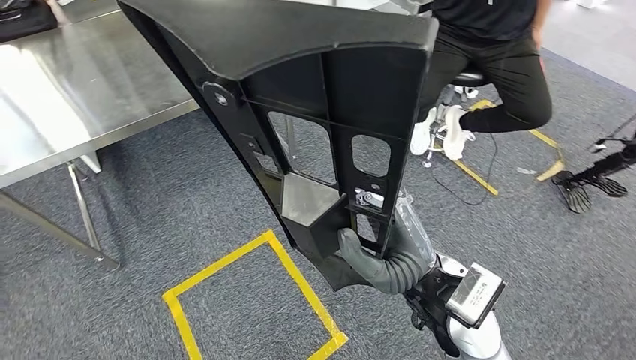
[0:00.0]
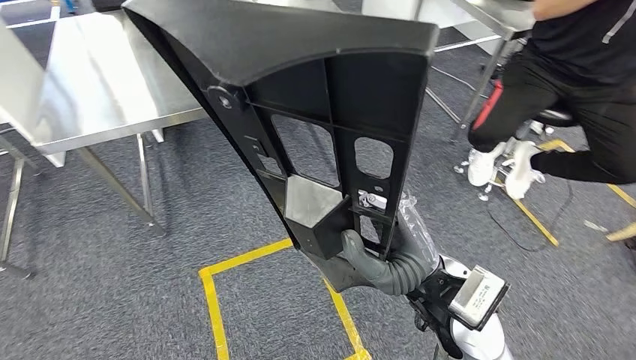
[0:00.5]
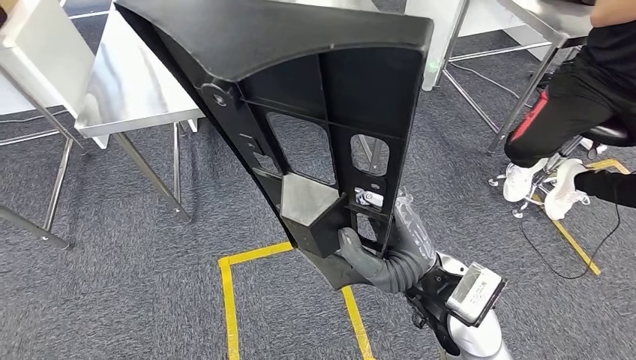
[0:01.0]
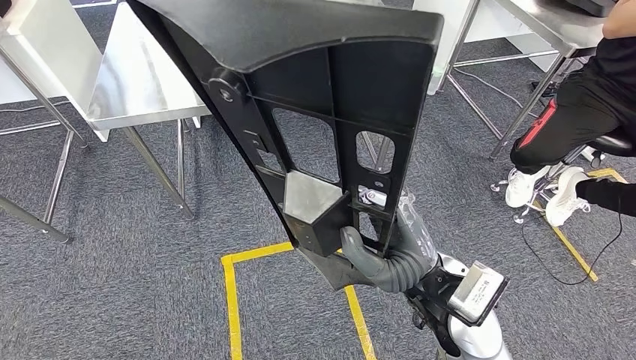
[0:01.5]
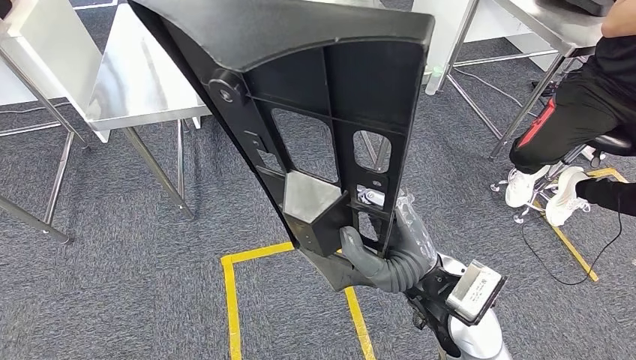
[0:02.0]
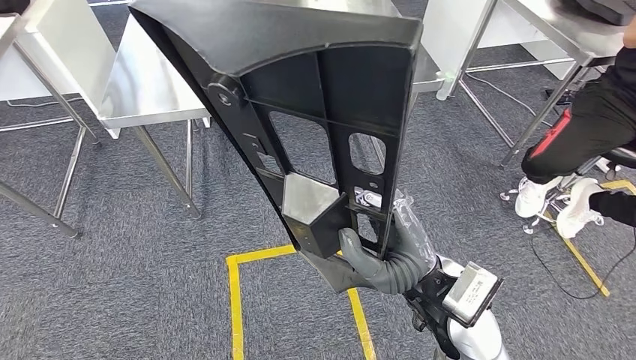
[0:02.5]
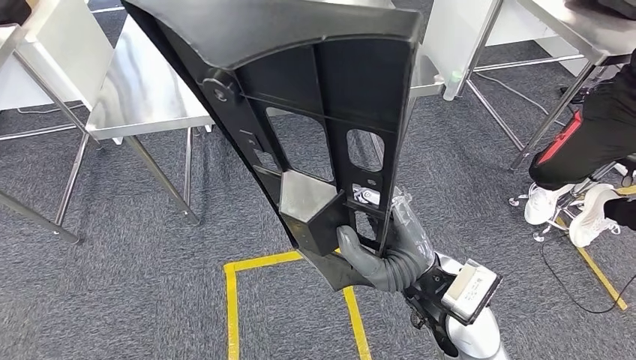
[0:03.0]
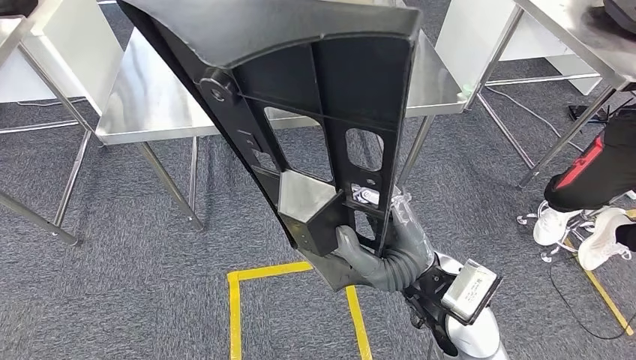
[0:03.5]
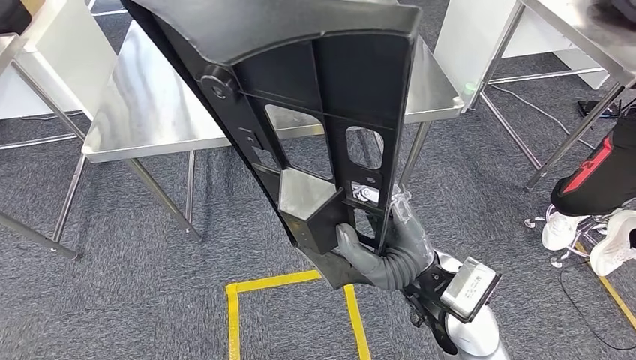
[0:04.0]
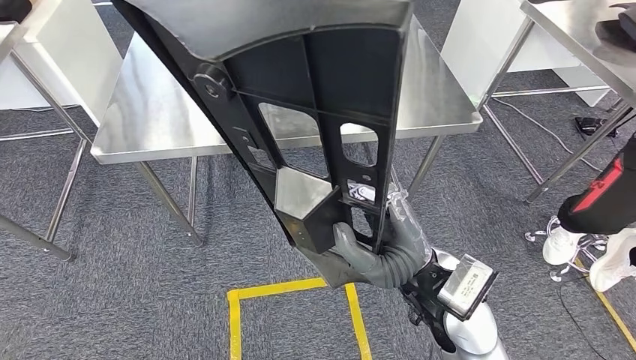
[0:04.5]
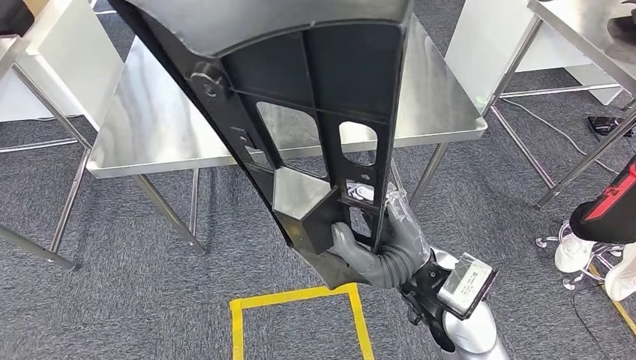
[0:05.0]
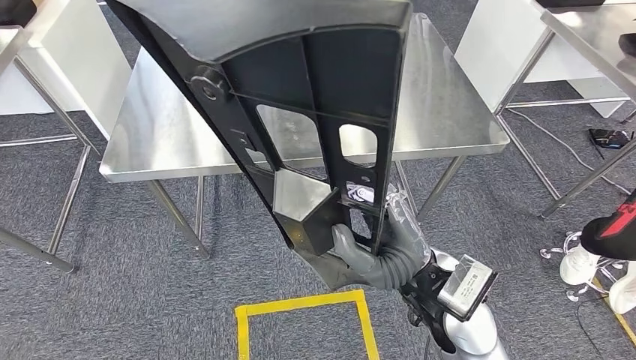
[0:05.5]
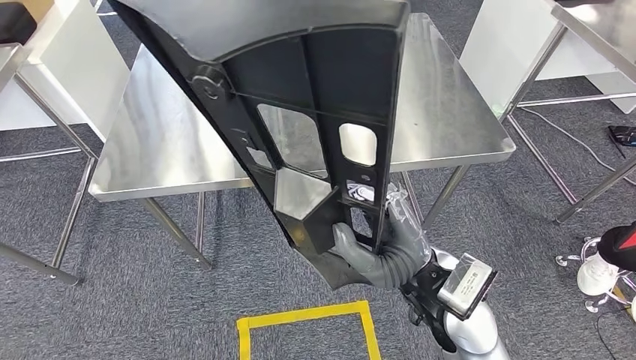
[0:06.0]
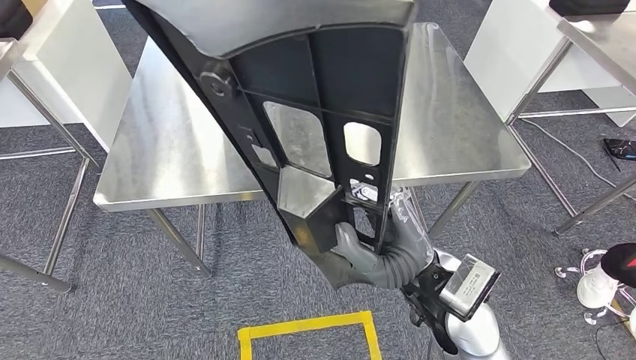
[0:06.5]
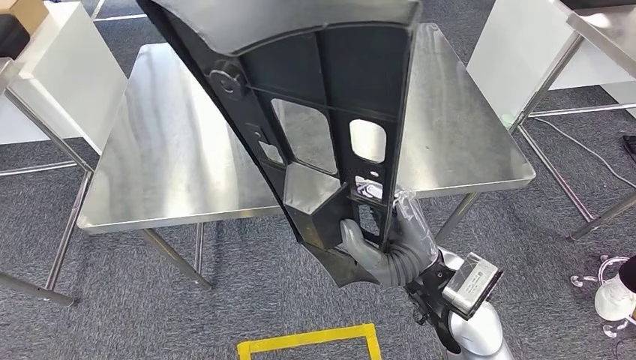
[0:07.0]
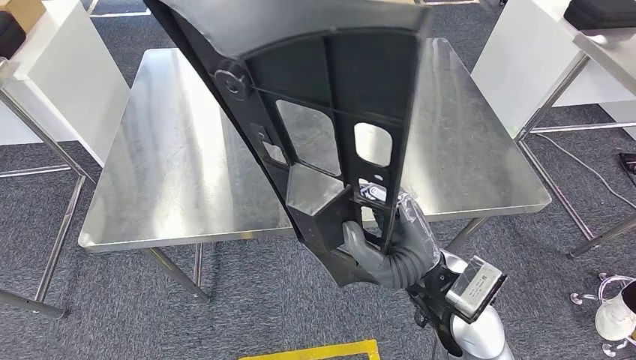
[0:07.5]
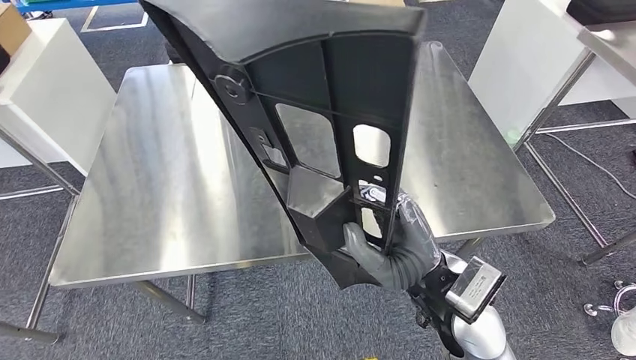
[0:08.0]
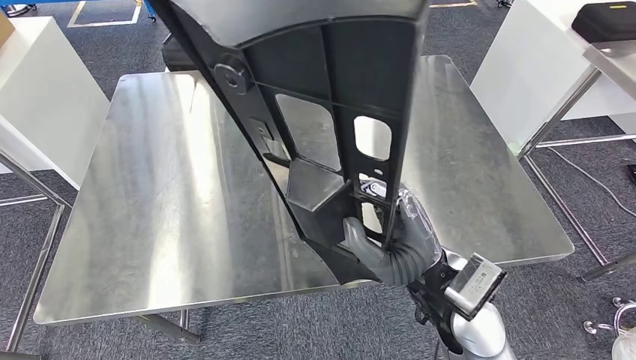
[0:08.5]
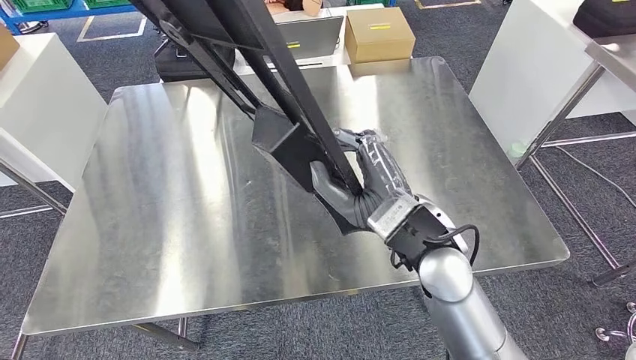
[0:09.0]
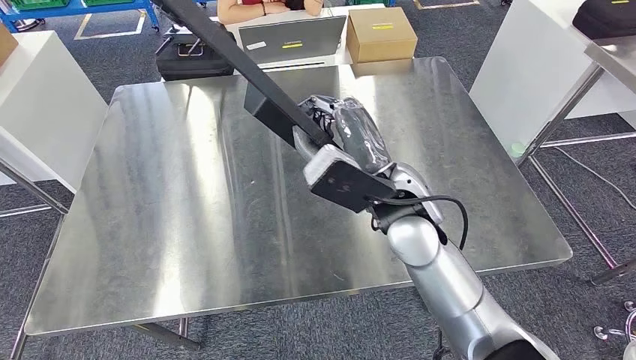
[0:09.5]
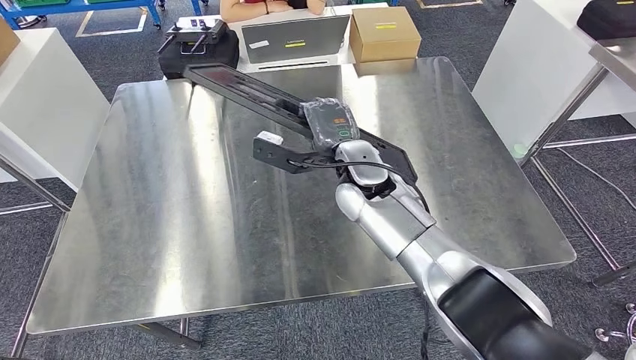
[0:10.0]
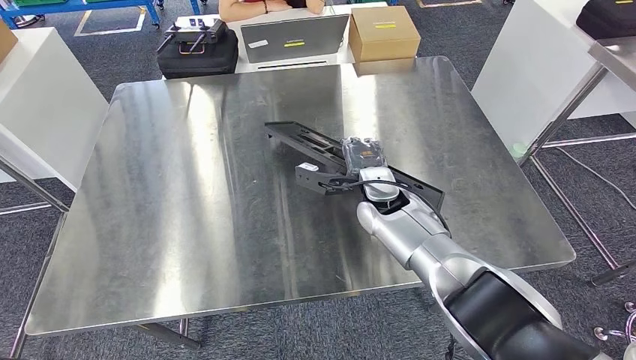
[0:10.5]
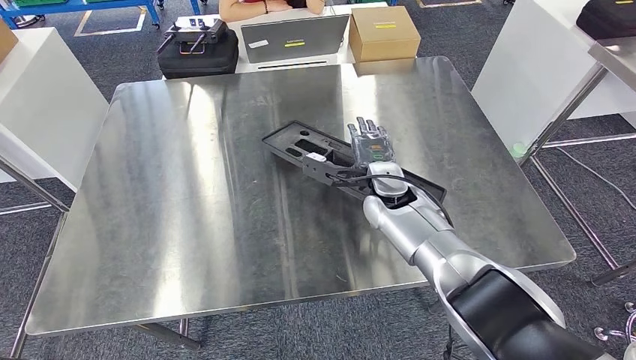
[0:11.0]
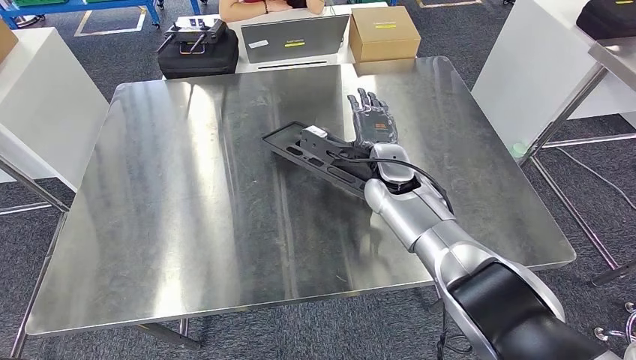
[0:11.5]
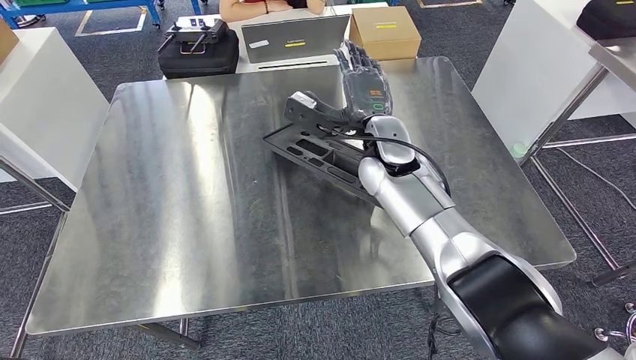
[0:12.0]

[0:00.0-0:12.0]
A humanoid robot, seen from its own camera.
Step, 0:00.0 to 0:06.5: Move the large material to the workbench.
0:10.0 to 0:12.0: The right hand goes downward and returns, roughly 5 cm each way.

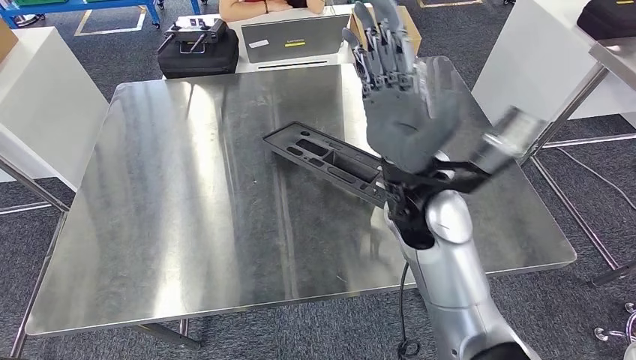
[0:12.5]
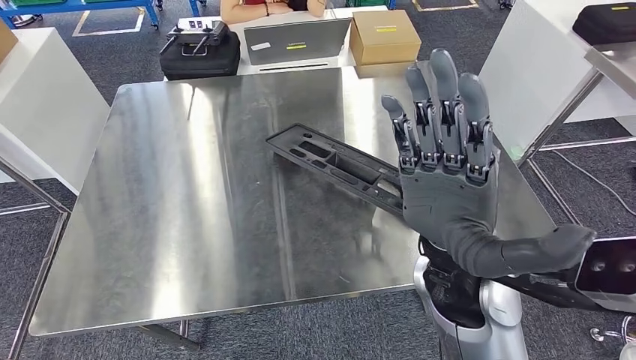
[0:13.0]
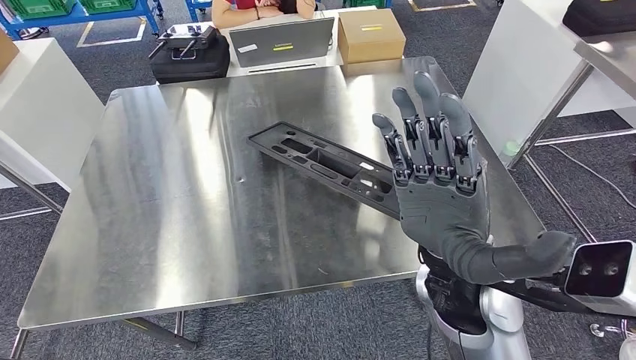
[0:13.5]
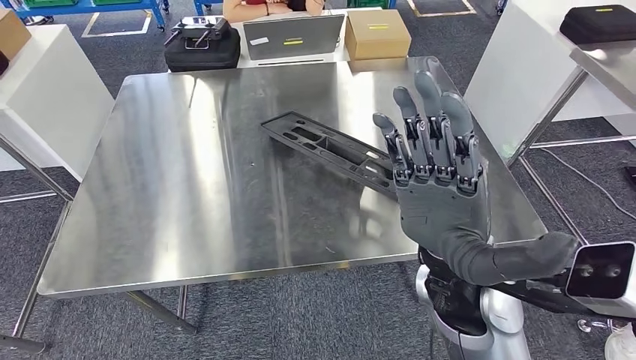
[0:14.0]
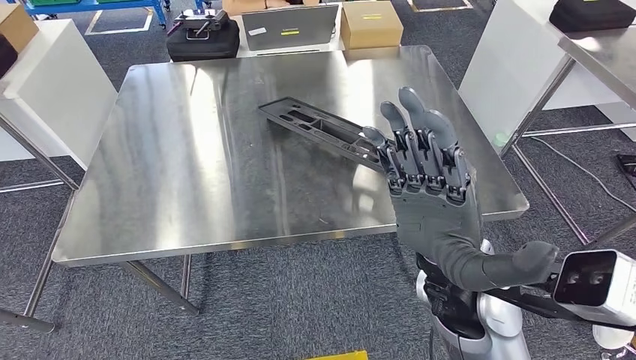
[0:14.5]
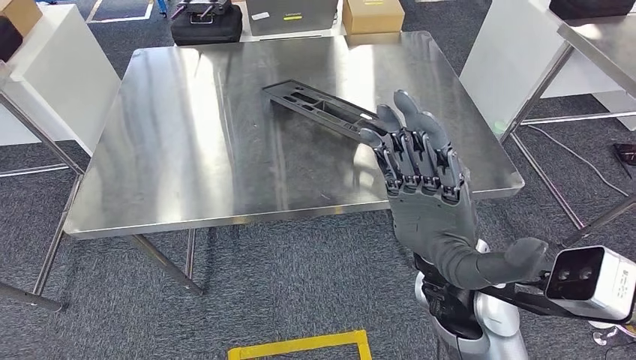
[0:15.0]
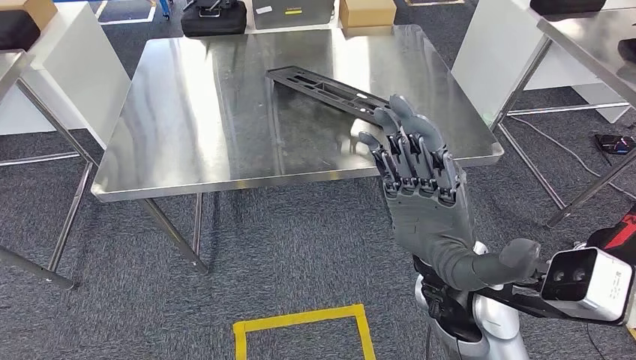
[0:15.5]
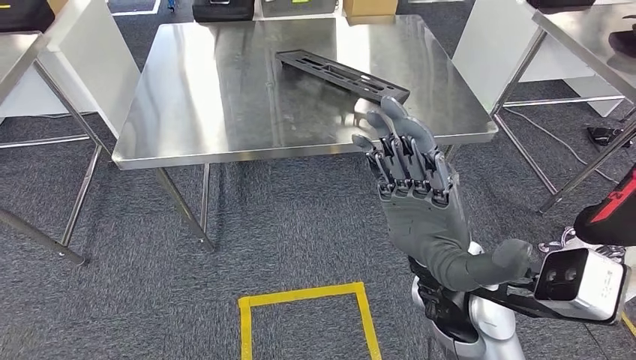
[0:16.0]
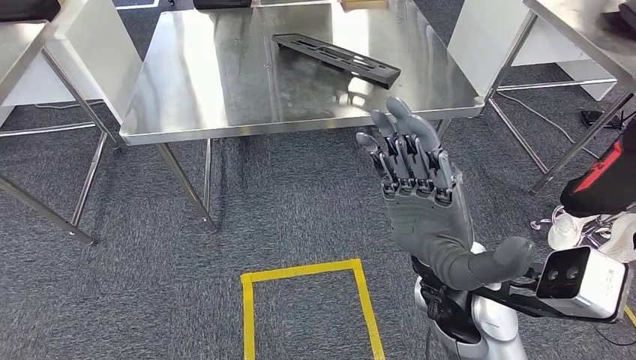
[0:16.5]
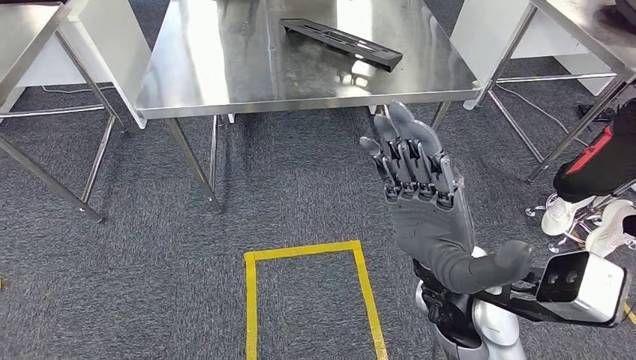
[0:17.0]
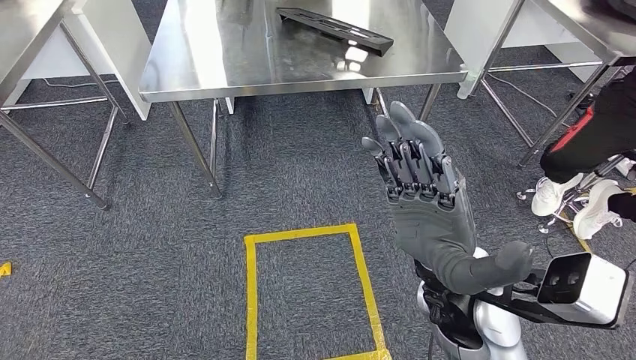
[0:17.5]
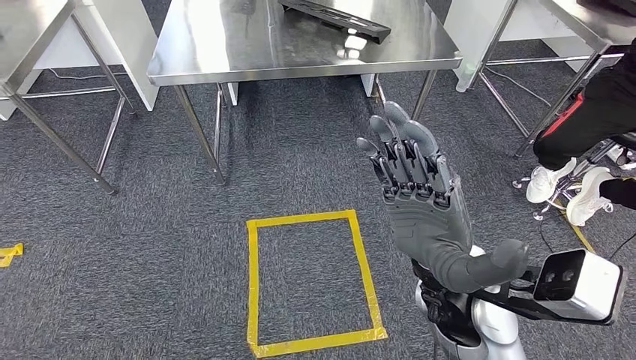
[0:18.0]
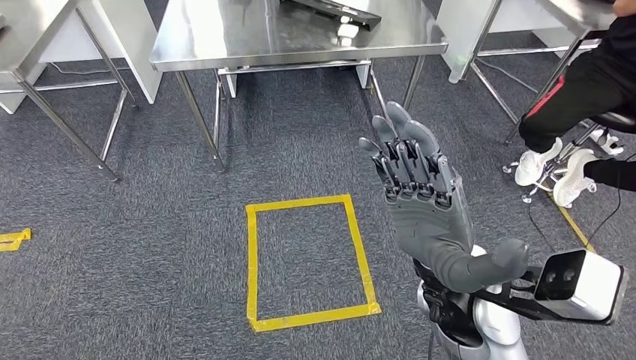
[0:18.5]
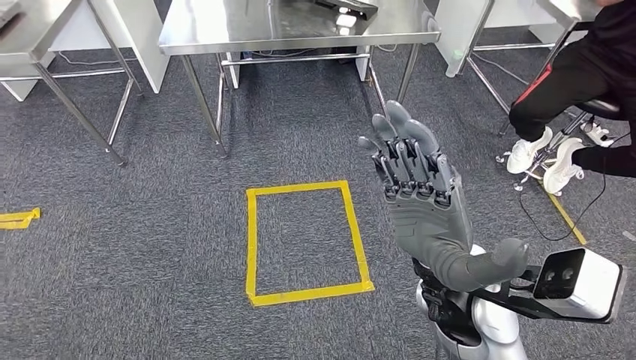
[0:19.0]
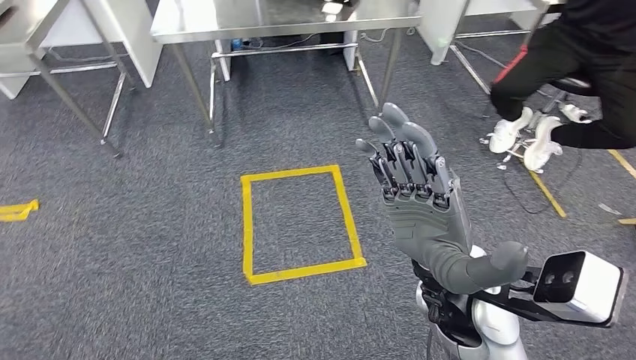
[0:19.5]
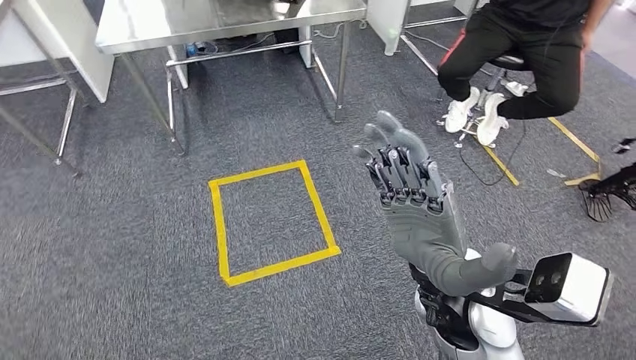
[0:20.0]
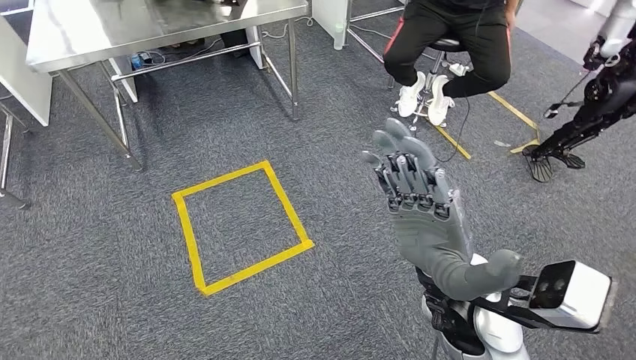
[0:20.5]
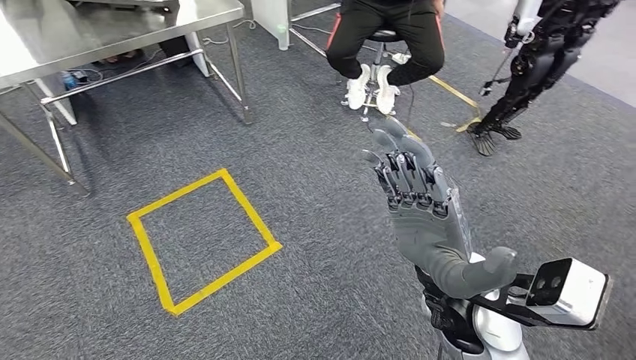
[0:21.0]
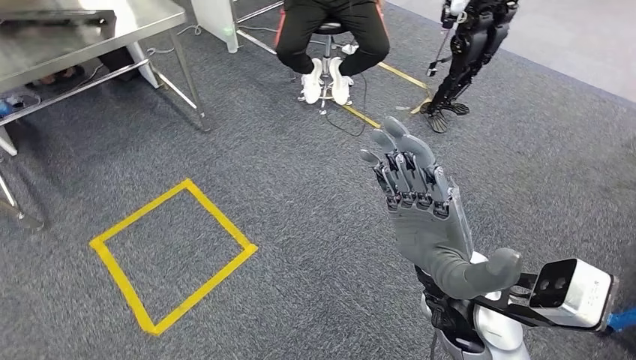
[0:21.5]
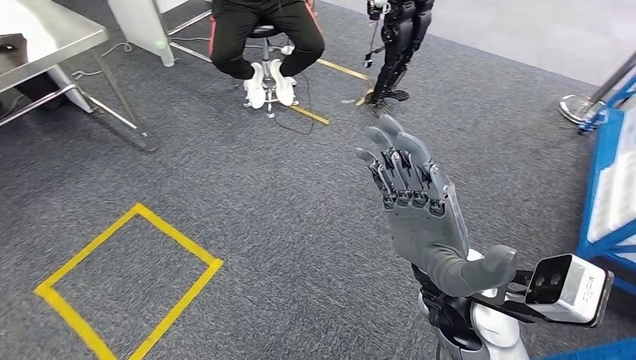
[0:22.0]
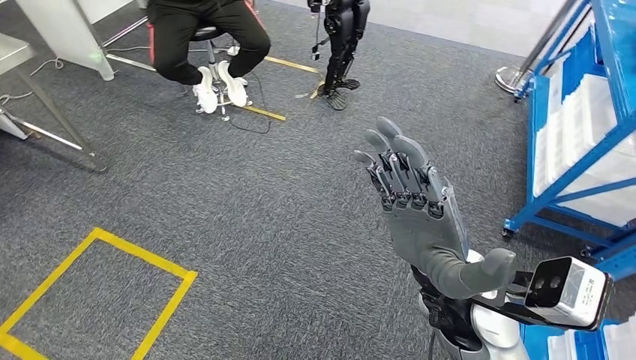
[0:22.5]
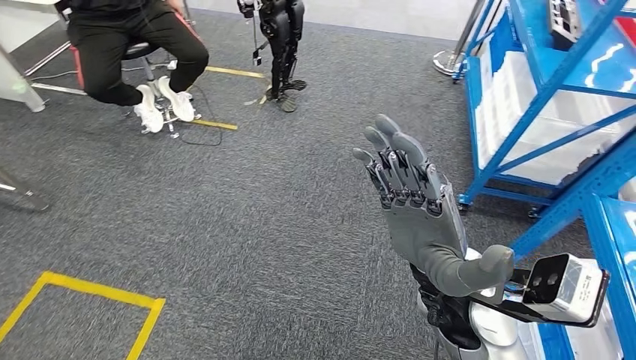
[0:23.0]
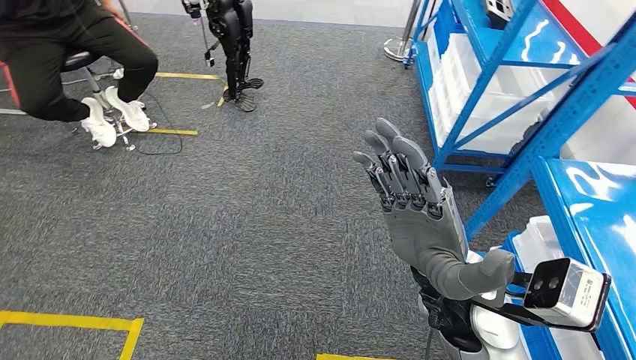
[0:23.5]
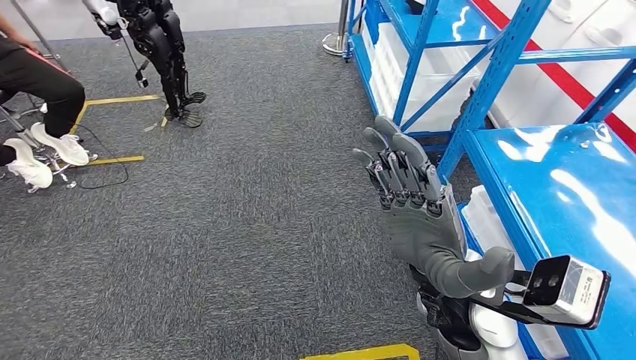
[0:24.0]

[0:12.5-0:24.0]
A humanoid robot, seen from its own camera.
Step, 0:12.5 to 0:18.5: Insert the large material into the corresponding slot on the workbench.